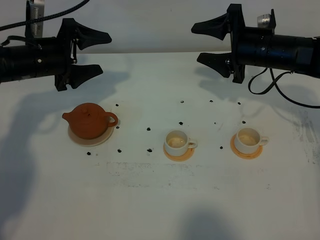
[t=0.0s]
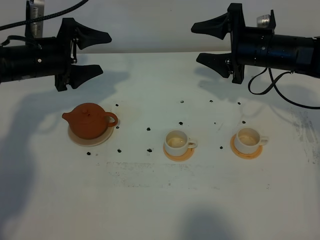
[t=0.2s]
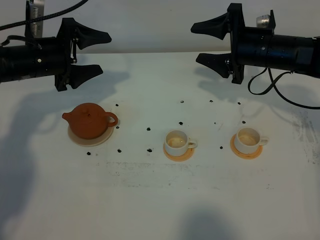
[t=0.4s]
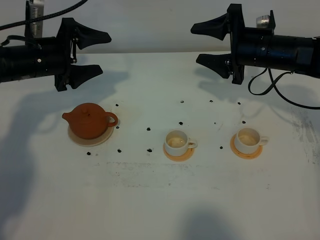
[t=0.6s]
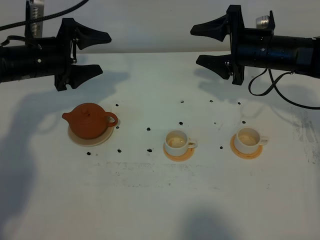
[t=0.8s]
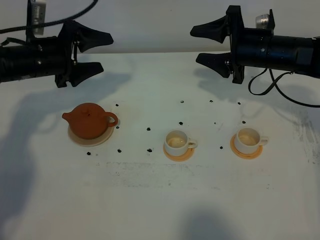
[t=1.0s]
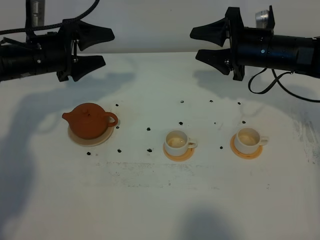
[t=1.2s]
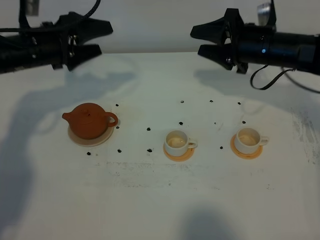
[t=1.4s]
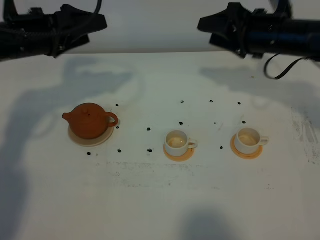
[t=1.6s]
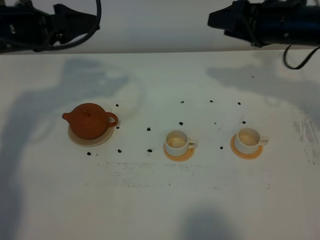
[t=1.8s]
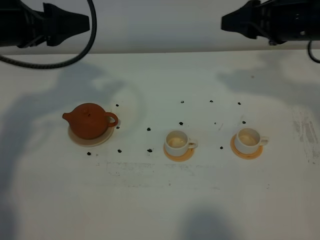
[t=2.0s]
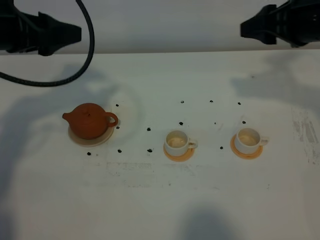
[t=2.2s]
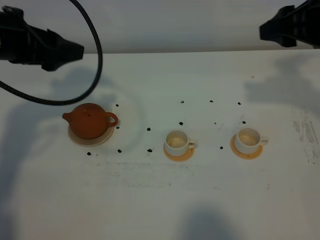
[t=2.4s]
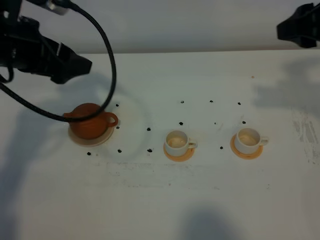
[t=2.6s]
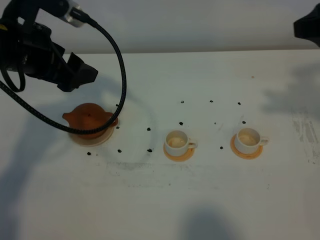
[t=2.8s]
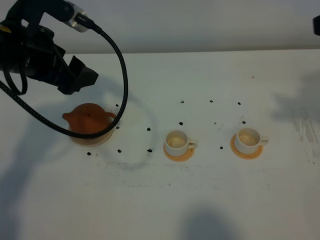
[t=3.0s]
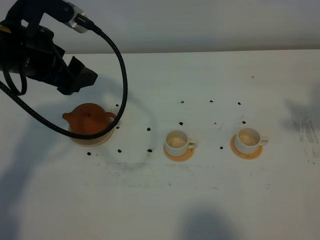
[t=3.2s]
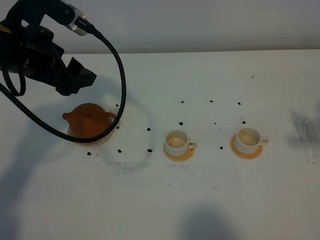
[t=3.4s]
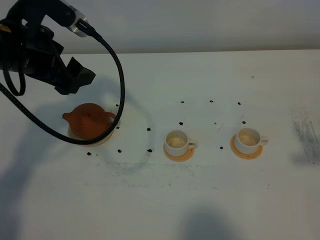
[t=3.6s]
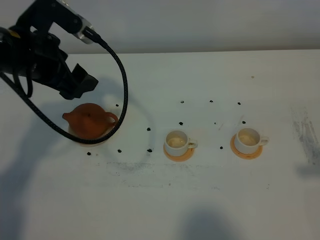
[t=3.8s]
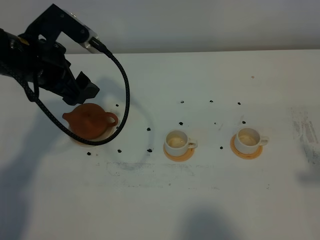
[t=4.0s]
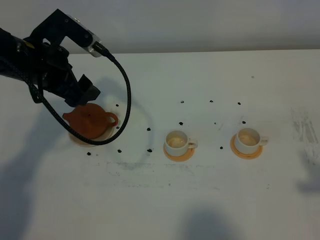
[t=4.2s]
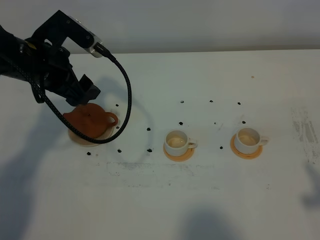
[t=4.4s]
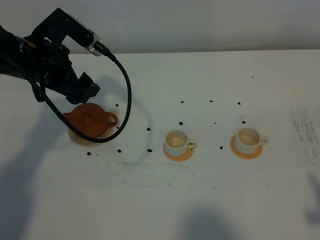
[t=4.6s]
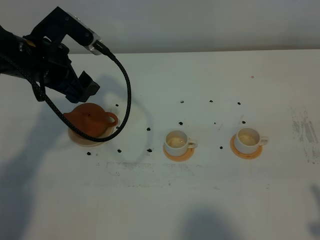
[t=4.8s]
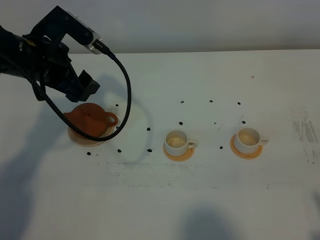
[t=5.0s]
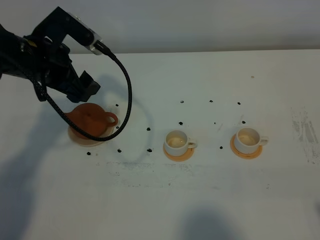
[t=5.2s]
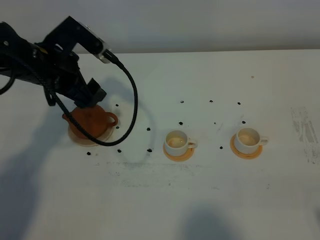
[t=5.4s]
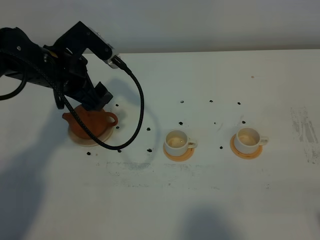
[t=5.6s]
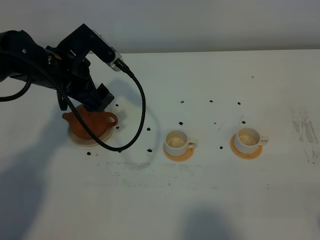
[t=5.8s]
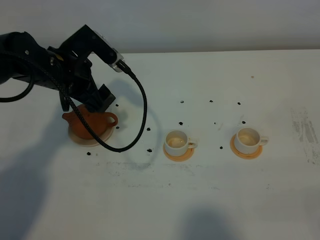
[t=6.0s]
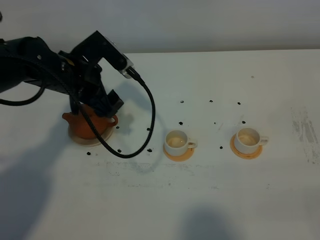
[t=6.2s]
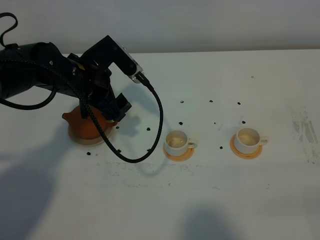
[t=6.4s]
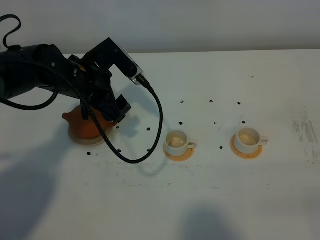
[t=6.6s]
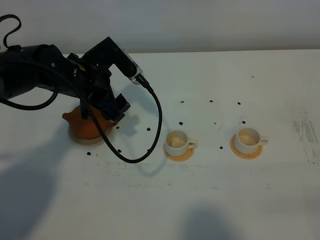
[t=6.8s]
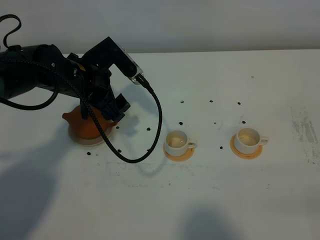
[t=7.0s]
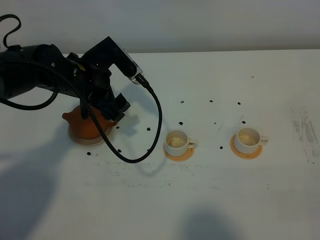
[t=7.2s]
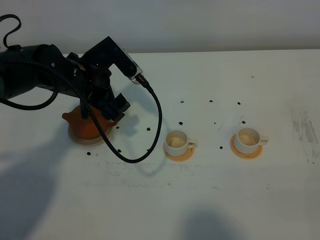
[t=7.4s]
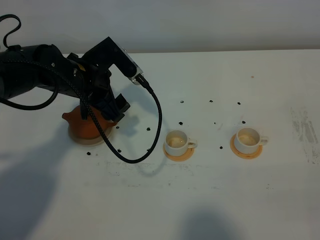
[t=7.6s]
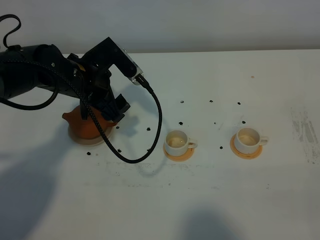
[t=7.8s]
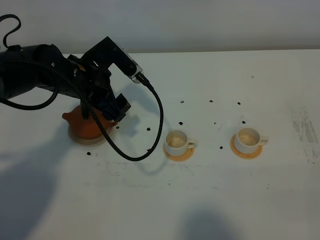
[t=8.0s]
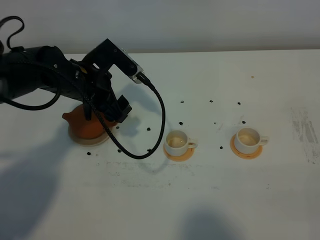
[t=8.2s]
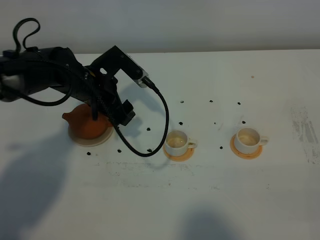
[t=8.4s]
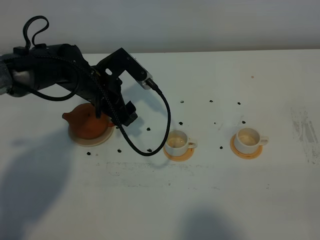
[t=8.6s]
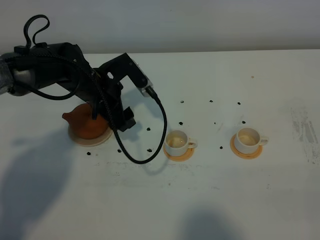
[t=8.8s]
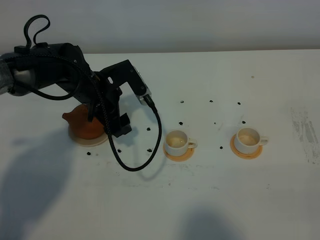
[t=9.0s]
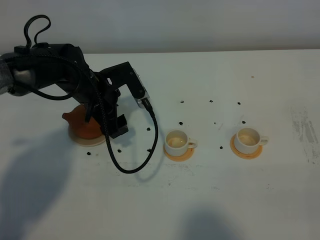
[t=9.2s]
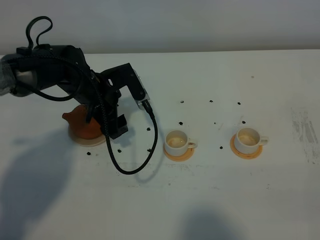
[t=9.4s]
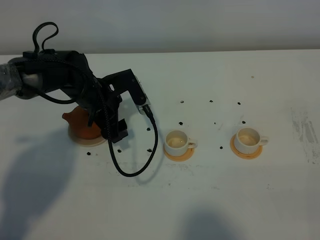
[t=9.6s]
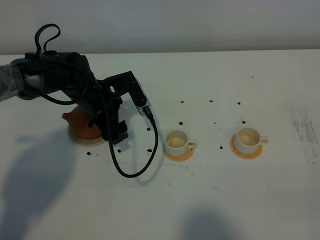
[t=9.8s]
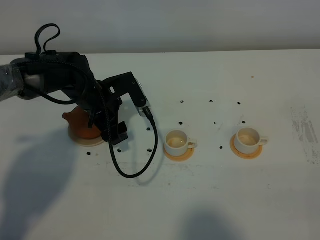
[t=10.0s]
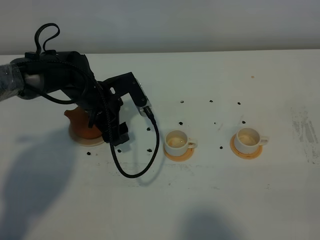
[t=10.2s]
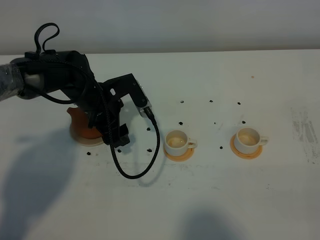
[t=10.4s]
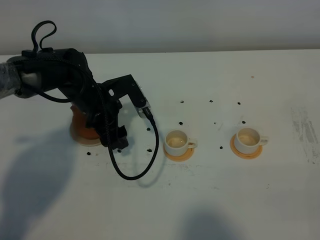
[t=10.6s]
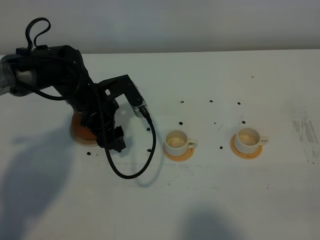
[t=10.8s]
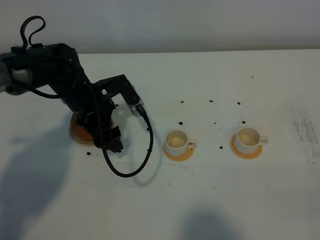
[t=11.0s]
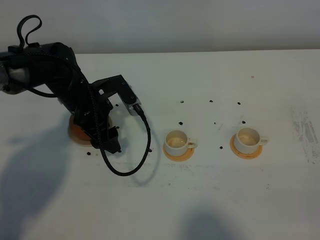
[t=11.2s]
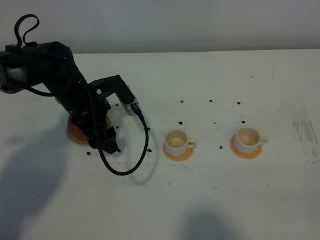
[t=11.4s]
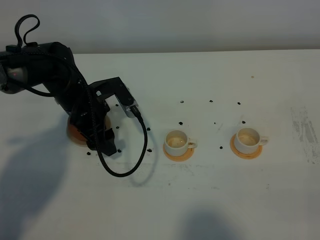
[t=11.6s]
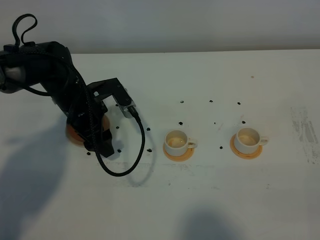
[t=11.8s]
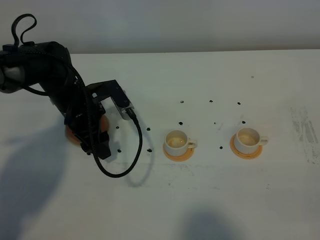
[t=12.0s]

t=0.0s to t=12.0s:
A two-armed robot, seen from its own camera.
Task of the whole recording: grasp the brown teapot and pour the tea into the two white teacups one by one, put the brown teapot back in its original place.
t=0.0s to t=1.6s: Both grippers travel together upward, some 5 cm.
t=1.6s to t=3.0s: The right gripper shifts roughly 25 cm backward, upward and to the right, while the left gripper heads backward, covering approximately 5 cm.
t=3.0s to t=4.4s: The left gripper goes approximately 5 cm downward; the right gripper goes roughly 15 cm backward and downward.
t=4.4s to t=6.0s: The right gripper heads downward and backward, covering roughly 10 cm. Meanwhile the left gripper moves roughly 5 cm.
t=7.6s to t=9.0s: The grippers make only small movements.
t=9.0s to t=12.0s: The grippers stay close to where they were, moving slightly.

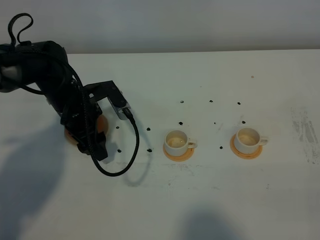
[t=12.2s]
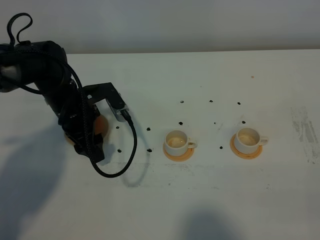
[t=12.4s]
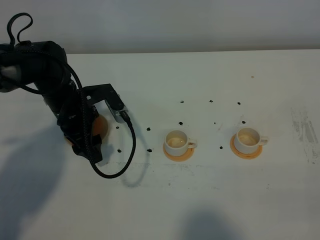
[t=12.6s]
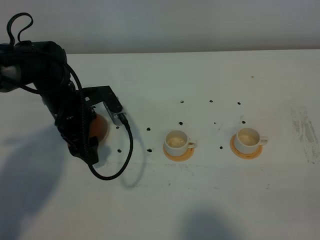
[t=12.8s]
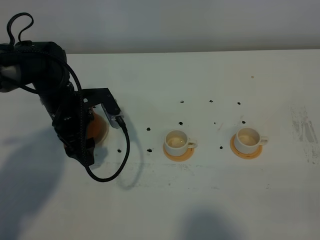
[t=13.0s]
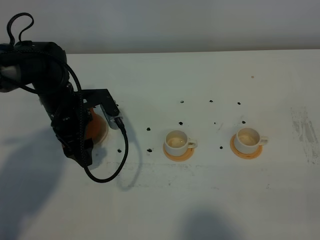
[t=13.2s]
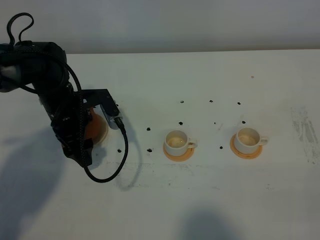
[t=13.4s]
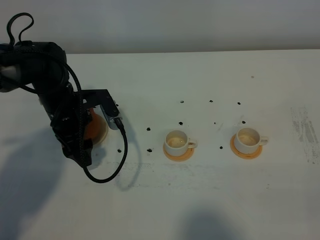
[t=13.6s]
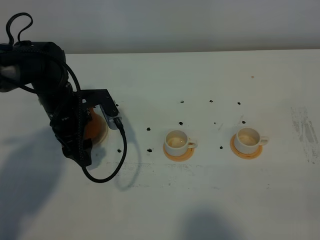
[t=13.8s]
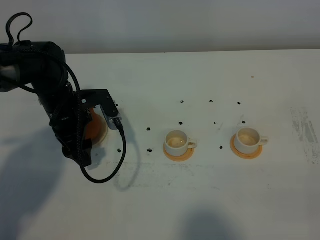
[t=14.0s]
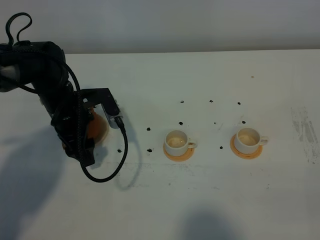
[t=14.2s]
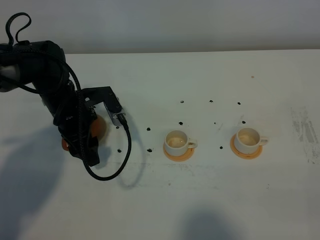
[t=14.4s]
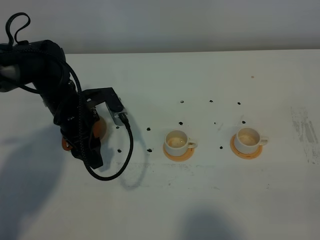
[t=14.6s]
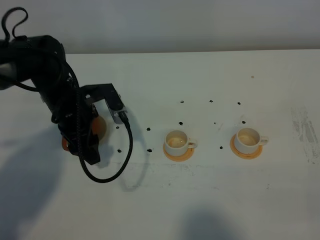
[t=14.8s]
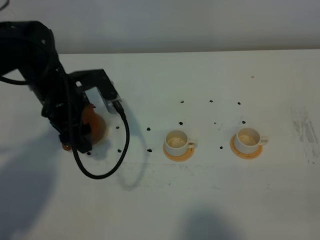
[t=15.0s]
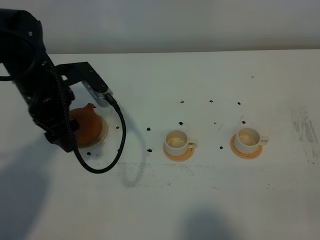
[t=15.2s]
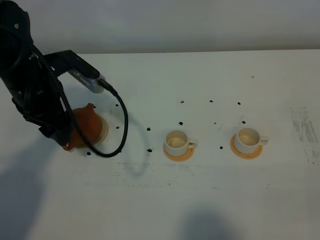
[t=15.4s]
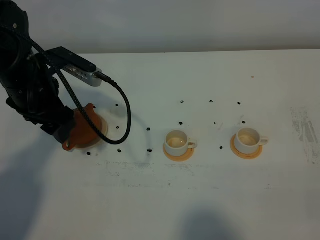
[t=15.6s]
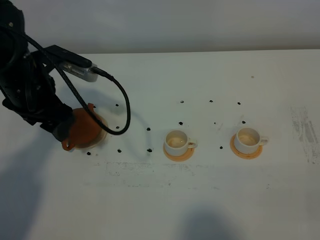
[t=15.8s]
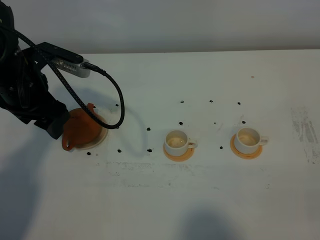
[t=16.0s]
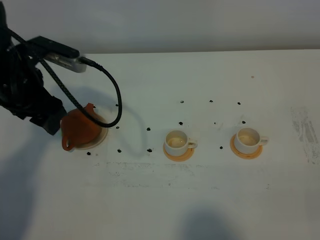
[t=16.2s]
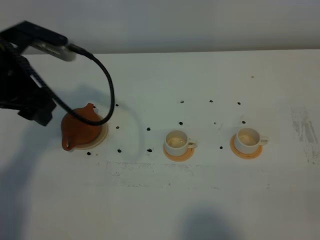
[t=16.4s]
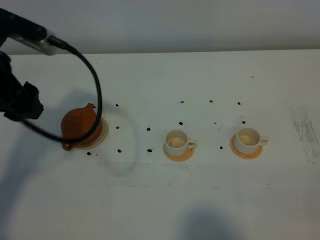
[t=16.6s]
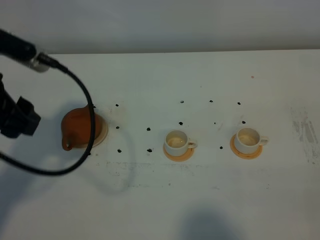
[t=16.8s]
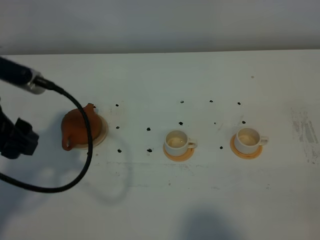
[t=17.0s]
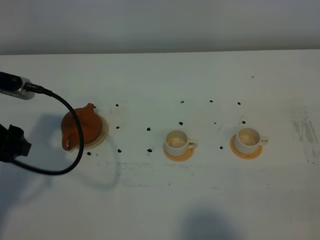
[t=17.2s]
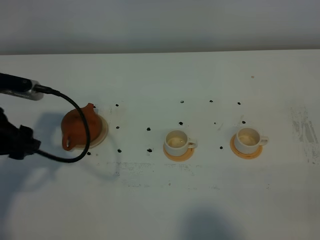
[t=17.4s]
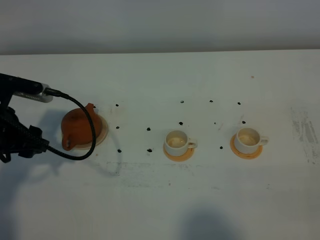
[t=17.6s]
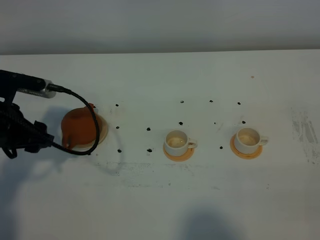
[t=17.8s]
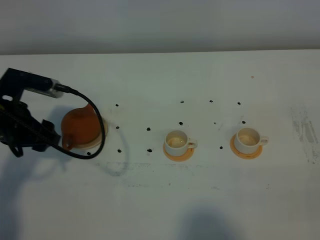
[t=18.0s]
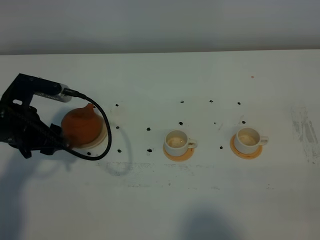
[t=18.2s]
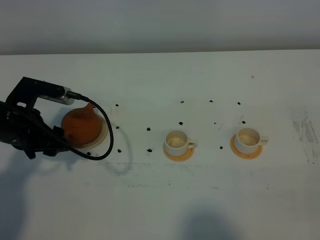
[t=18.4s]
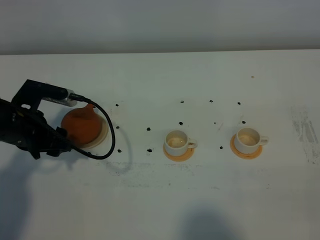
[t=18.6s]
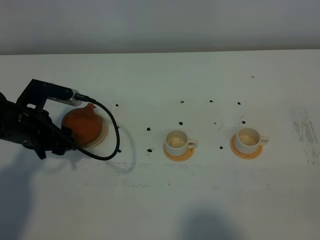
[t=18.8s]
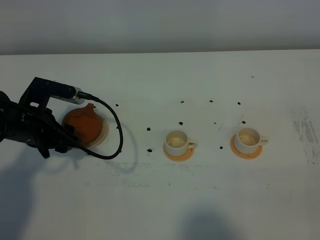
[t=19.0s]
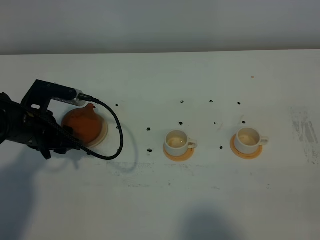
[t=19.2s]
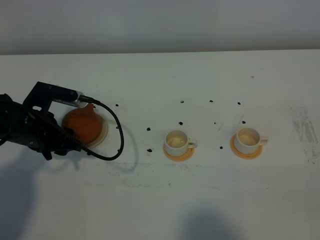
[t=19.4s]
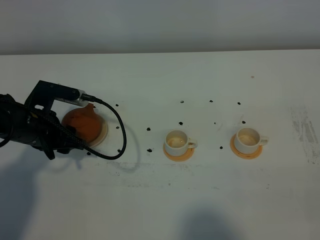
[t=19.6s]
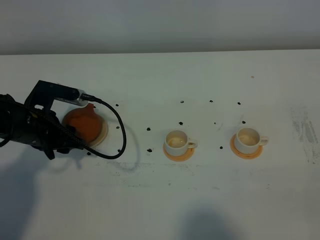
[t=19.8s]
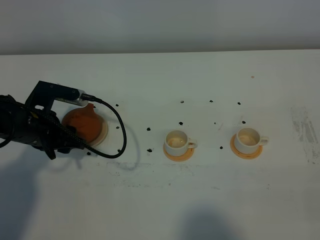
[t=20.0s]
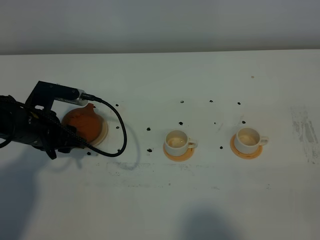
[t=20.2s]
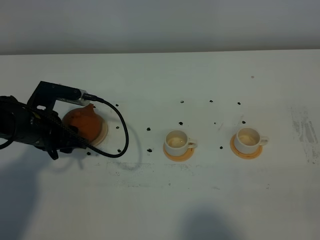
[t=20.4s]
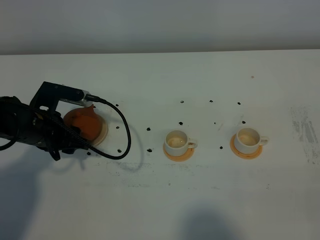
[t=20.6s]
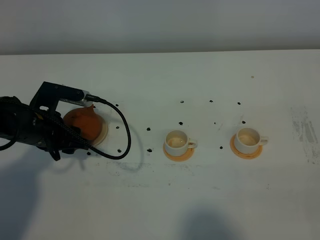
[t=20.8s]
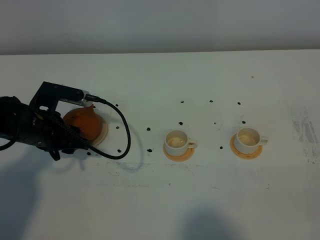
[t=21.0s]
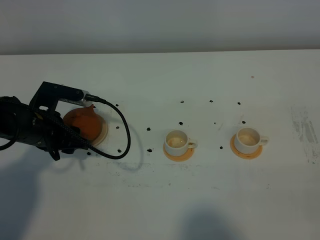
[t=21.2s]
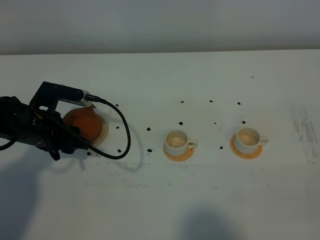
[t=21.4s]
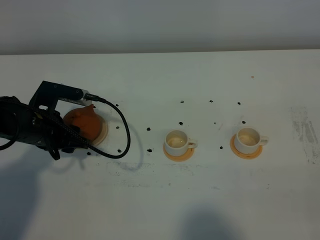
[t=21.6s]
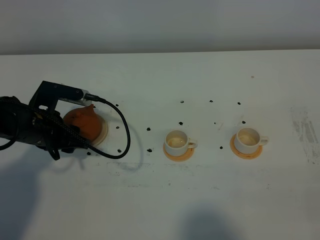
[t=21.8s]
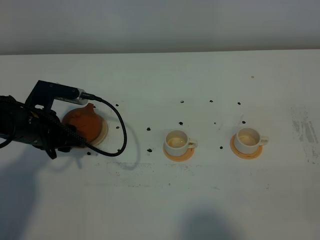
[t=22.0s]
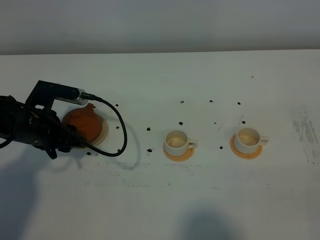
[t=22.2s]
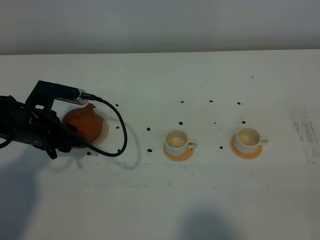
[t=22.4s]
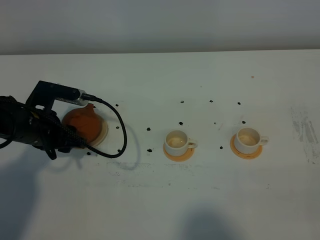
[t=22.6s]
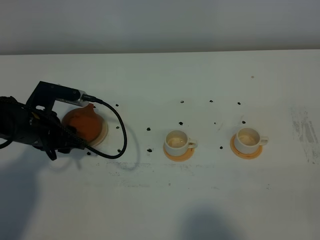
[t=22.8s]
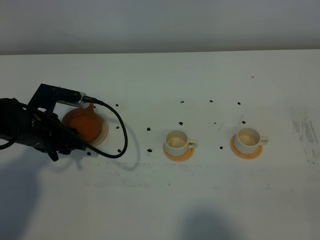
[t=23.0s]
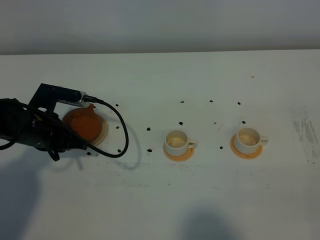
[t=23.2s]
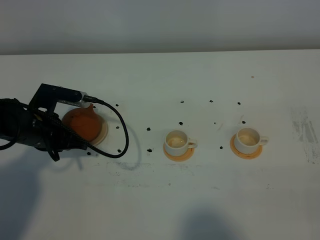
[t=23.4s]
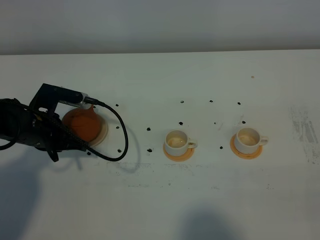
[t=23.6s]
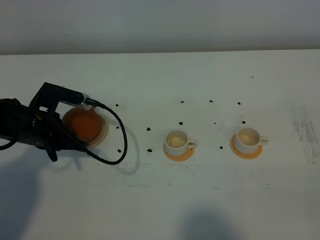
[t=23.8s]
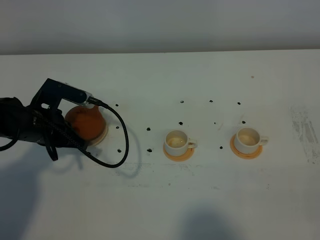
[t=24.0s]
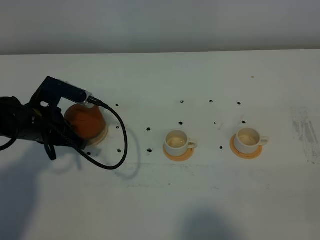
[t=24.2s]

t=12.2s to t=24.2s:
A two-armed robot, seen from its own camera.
Task of the whole recording: grasp the brown teapot and pour the tea into the two white teacups one by one, put the brown teapot back in its original place.
t=12.2s to t=13.8s: The grippers stay close to where they were, moving slightly.
t=13.8s to t=15.2s: The left gripper goes roughly 10 cm upward.
t=15.2s to t=16.6s: The left gripper travels upward and backward by roughly 10 cm.
t=16.6s to t=18.2s: The left gripper shifts some 15 cm downward.
t=18.2s to t=19.8s: The grippers move only a little.
t=19.8s to t=22.6s: The two grippers keep their place.
t=22.6s to t=24.2s: The left gripper closes its fingers.
